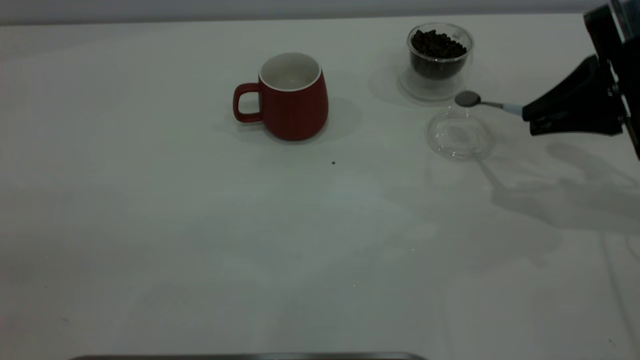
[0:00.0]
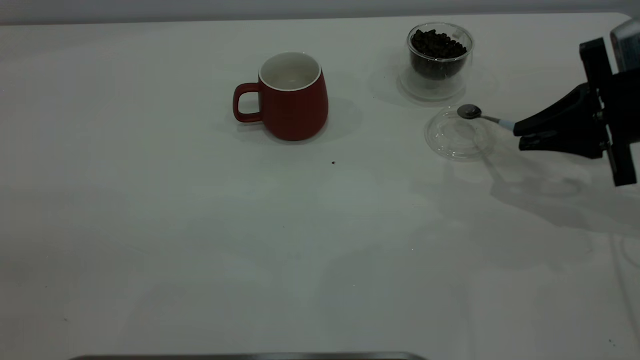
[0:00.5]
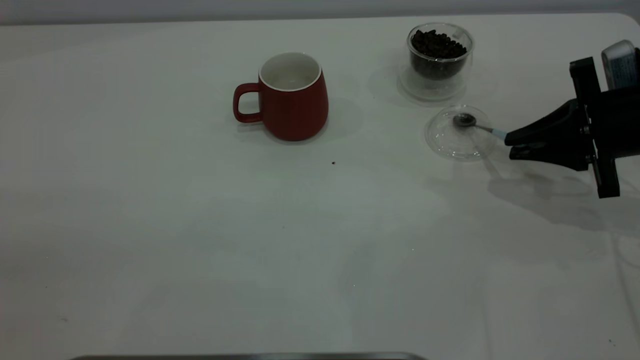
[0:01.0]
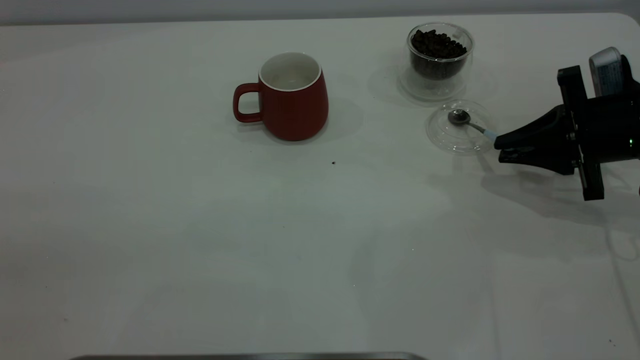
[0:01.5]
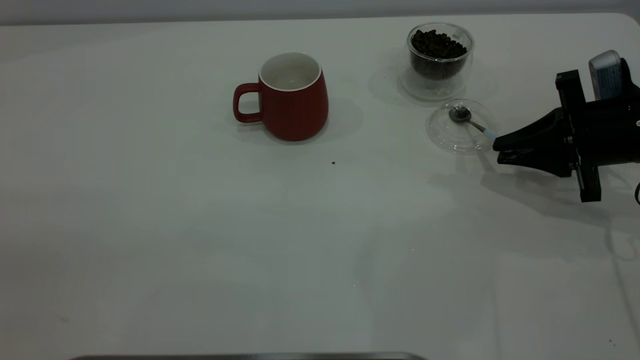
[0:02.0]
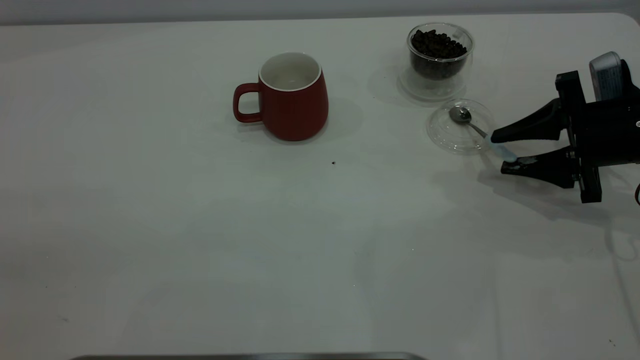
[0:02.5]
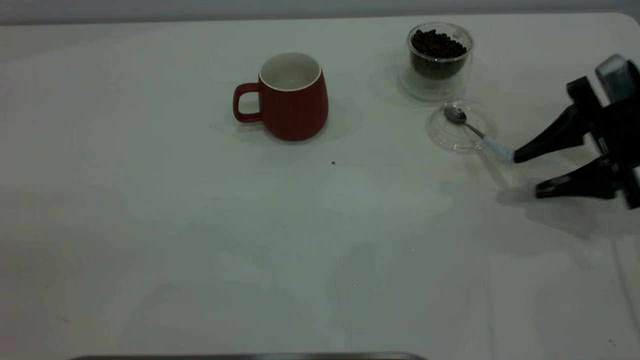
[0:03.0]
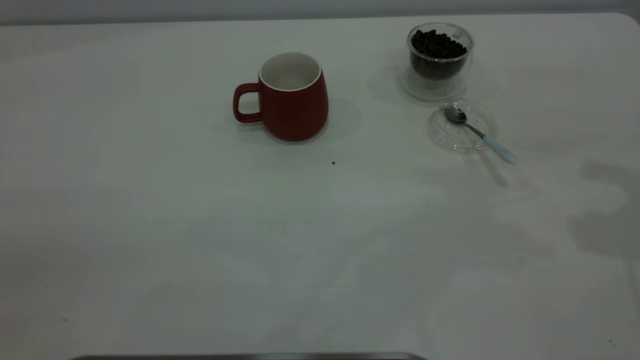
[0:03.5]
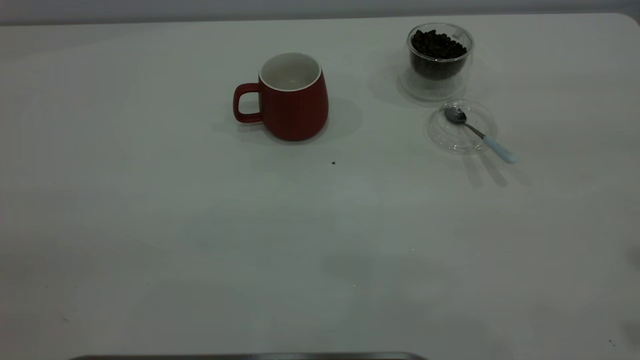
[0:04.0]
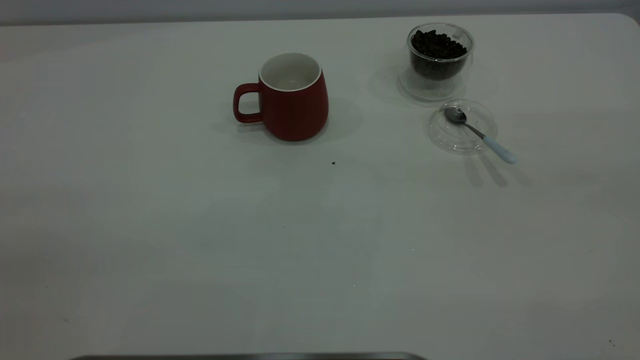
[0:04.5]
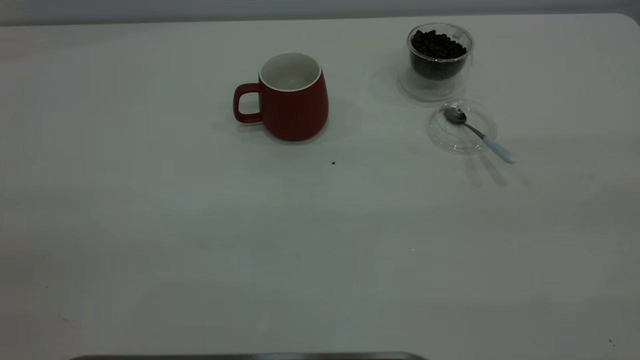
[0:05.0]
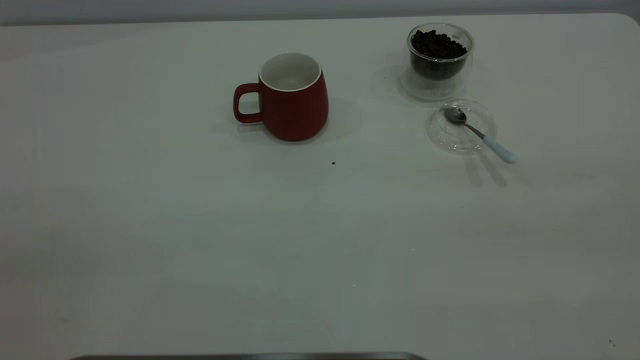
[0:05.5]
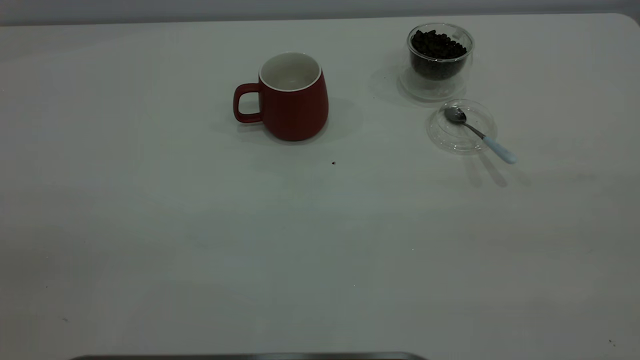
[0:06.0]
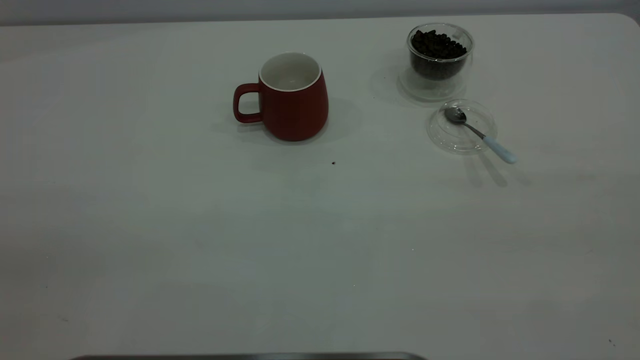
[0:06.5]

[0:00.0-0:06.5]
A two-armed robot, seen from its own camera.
Task of the whole recording: the left gripper place the red cup in the center of the table, the right gripper take the blue spoon from the cup lid and scoop out the coffee beans from the coffee cup and put them into the red cup, the right gripper put the spoon back into the cup lid.
Step, 0:00.0 to 0:02.5: Place the spoon back in its original place.
0:00.0 to 0:02.0: The right gripper travels downward by some 10 cm.
0:02.0 to 0:04.5: The right gripper moves upward and backward, about 50 cm, and opens.
